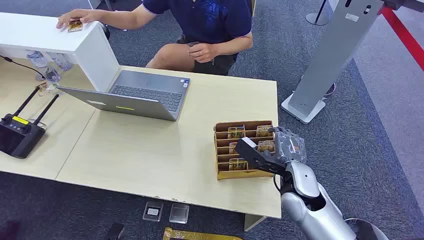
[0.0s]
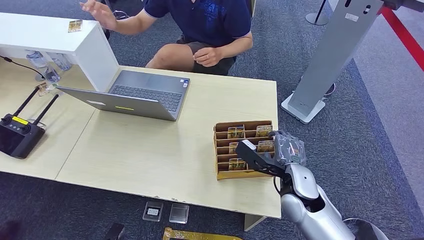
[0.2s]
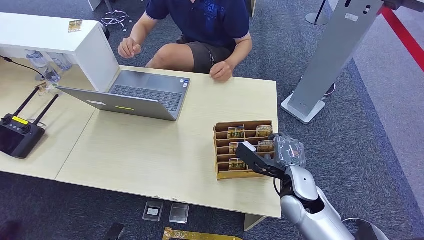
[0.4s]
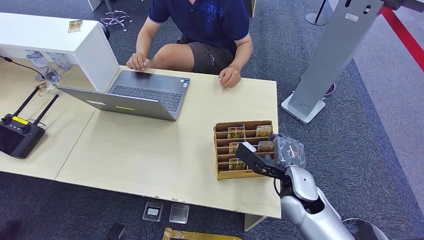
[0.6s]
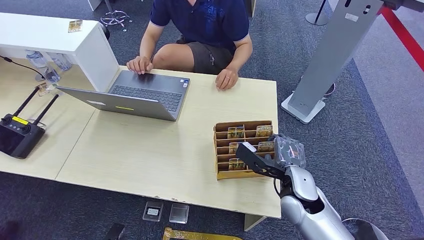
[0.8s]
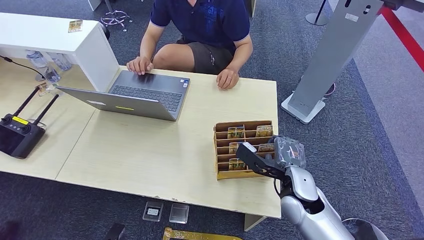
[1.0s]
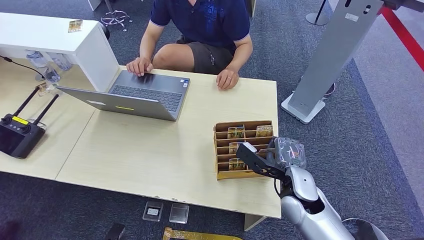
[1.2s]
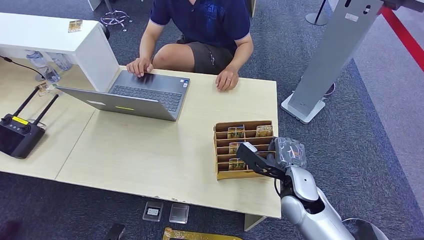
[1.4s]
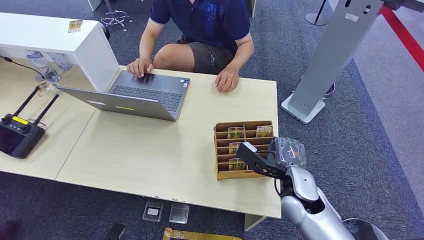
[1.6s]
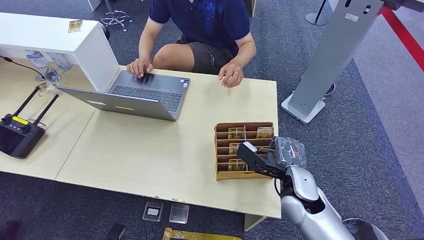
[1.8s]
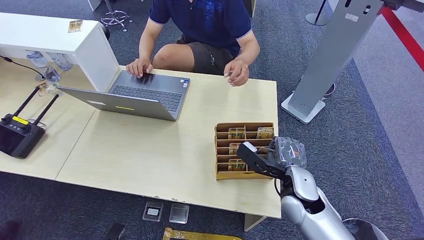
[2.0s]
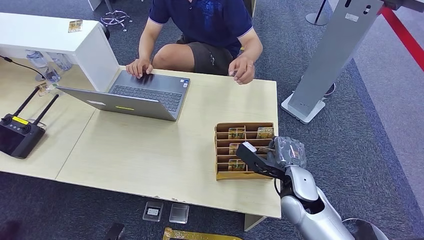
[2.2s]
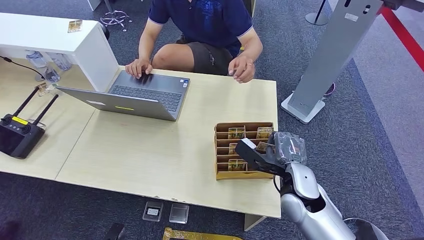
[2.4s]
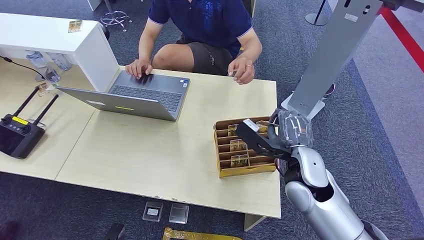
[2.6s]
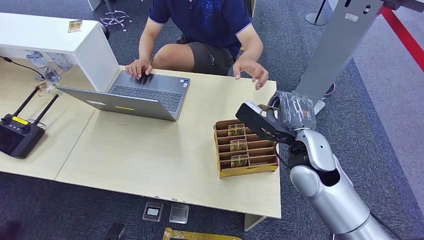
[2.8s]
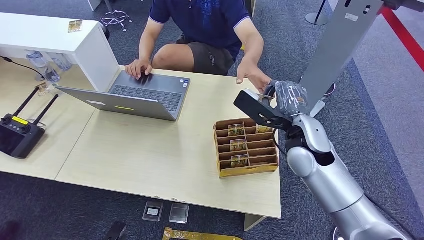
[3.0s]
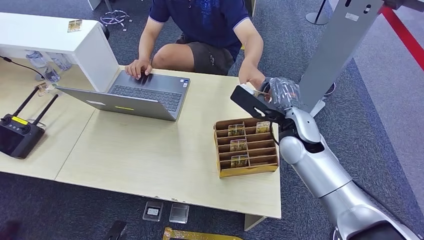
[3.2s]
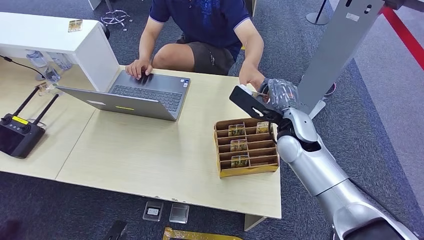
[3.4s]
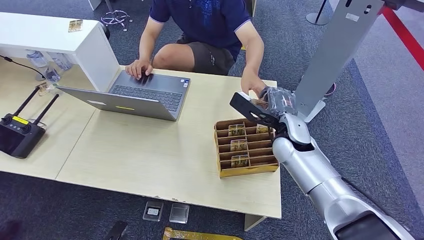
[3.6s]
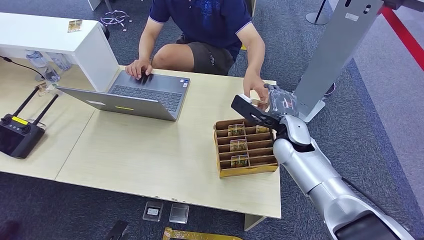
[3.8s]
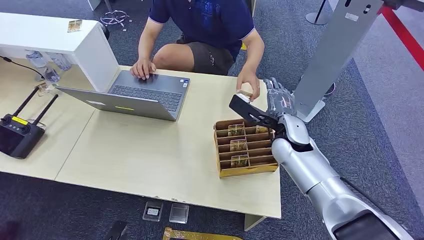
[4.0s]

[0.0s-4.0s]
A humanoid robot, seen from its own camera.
Step, 0.0s to 2.4s: Pick up the key card from the card box.
Step, 3.0s to 3.8s: Hand the key card to the target.
1.4s to 2.6s: The right hand is displaced upward by about 5 cm.
2.6s to 4.0s: The right hand goes approximately 10 cm forward.
